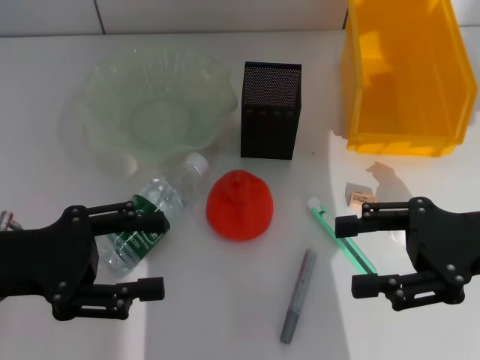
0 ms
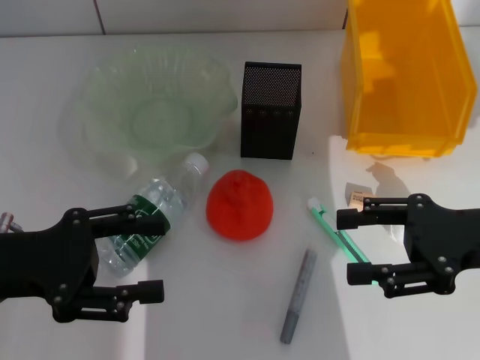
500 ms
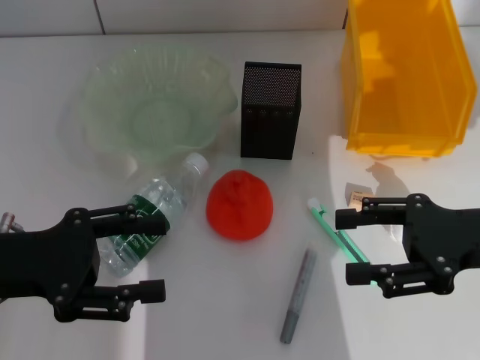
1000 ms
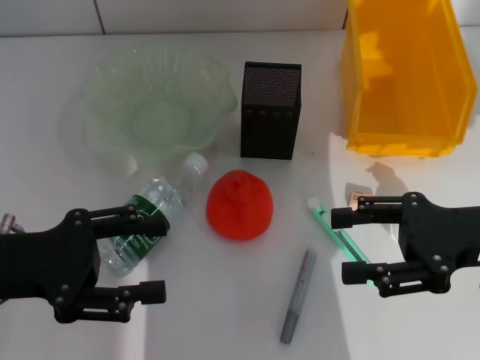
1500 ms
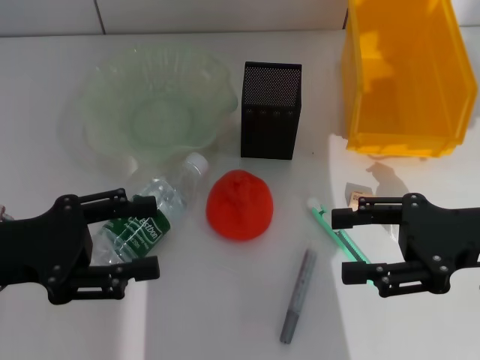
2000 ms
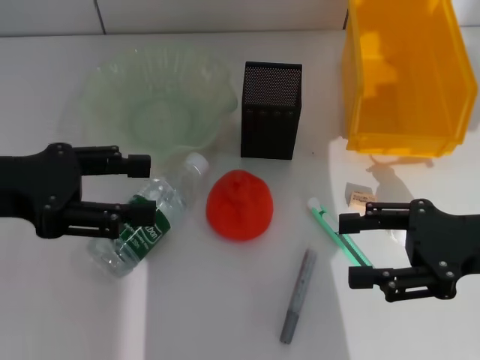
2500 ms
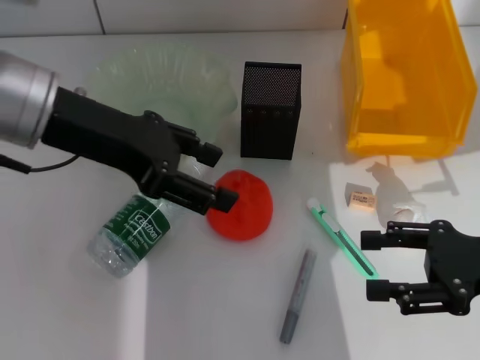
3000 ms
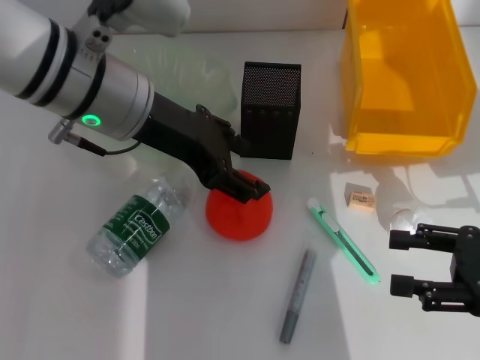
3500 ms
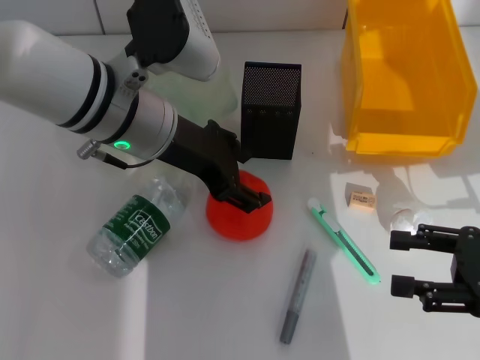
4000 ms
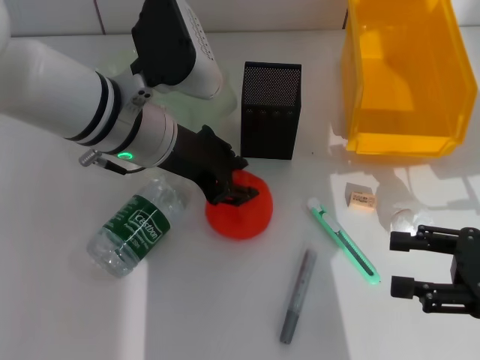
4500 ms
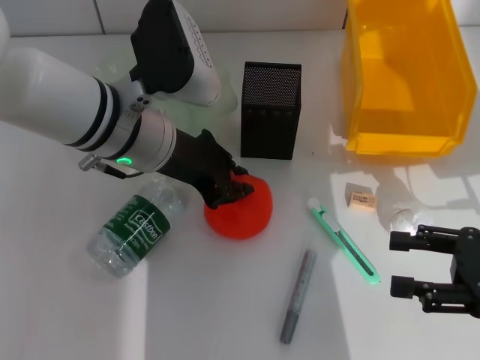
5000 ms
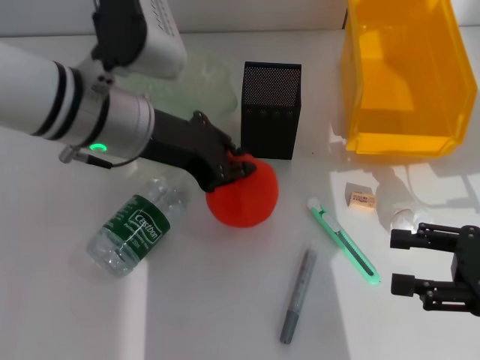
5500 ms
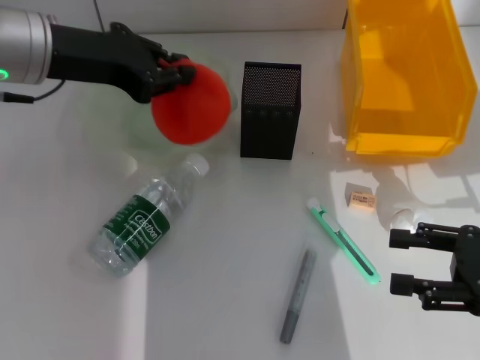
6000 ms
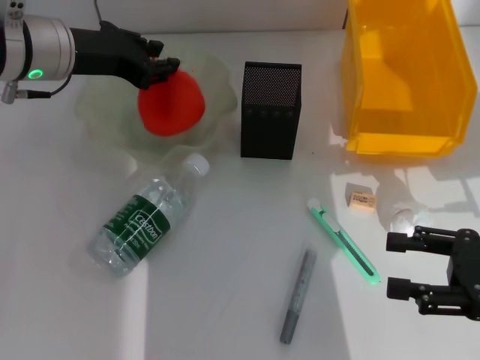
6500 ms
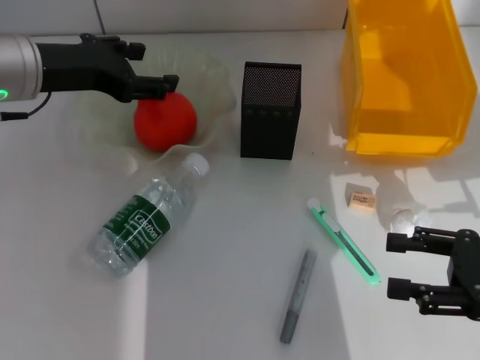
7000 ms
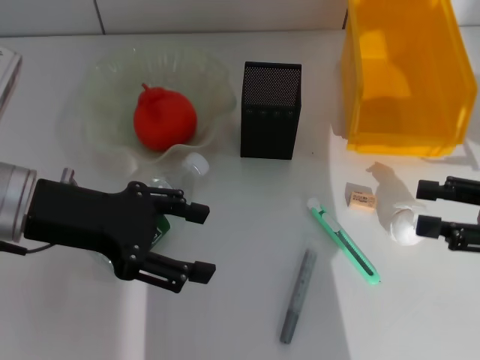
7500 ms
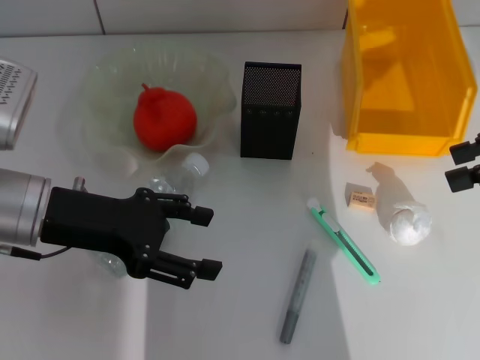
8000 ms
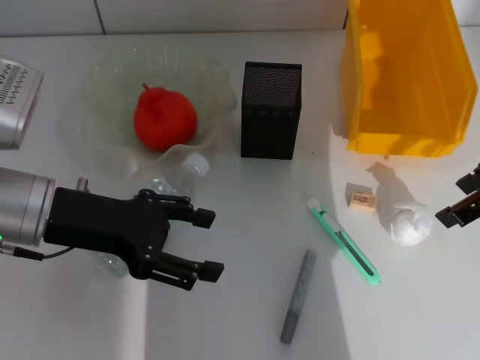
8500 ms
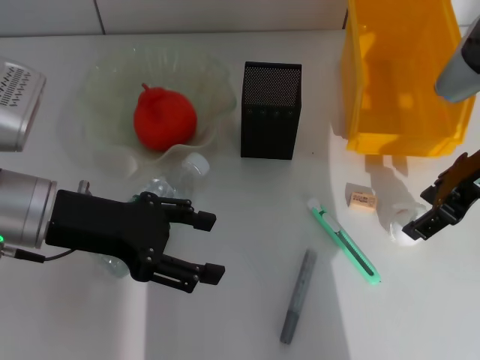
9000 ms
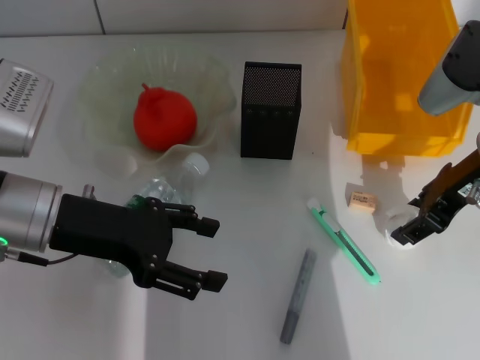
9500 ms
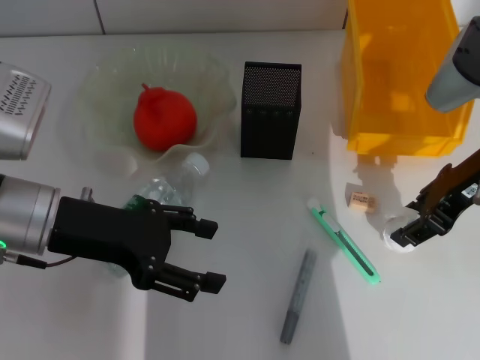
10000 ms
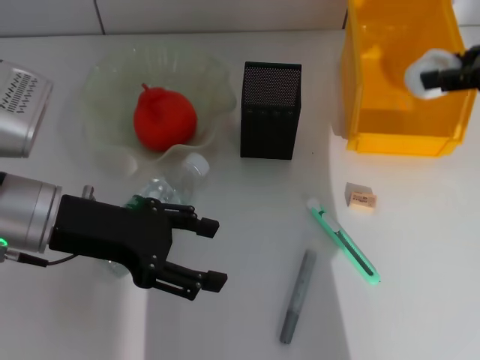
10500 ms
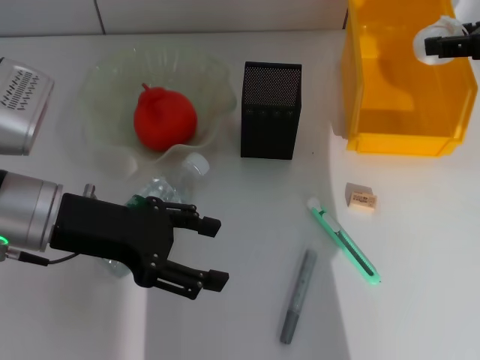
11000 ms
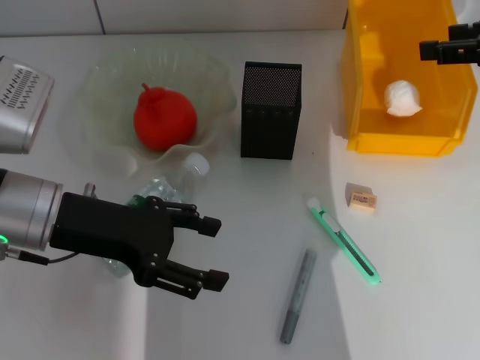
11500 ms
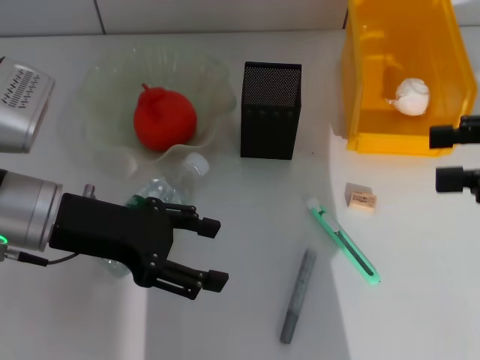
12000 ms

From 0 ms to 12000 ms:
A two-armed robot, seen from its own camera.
Step, from 0 ms to 4500 ms: Grab the orange with the left hand.
Step, from 5000 ms to 6500 ms: Place the orange into the fruit bowl with the left hand.
Step, from 7000 ms to 9500 ms: Grab the paper ball with the right hand.
Step, from 10000 ms to 11000 ms: Place the paper ball into the trash can with the right hand.
From 0 ms to 2000 ms: Both grippers stay about where they are.
From 2000 ms to 4000 ms: The left gripper goes about 20 cm to the right and forward, while the right gripper heads to the right, covering roughly 5 cm.
From 4000 ms to 6000 ms: The left gripper is displaced to the left by some 10 cm, and closes.
From 6000 ms to 8000 ms: The right gripper shifts some 15 cm upward and forward; the left gripper moves downward and backward, some 10 cm, and opens up.
From 8000 ms to 10000 ms: The right gripper shifts some 10 cm to the left and downward, and closes up.
From 10000 ms to 12000 ms: The right gripper goes some 10 cm to the right and backward, and opens its fingers.

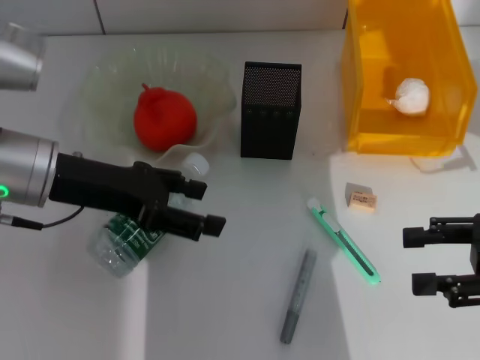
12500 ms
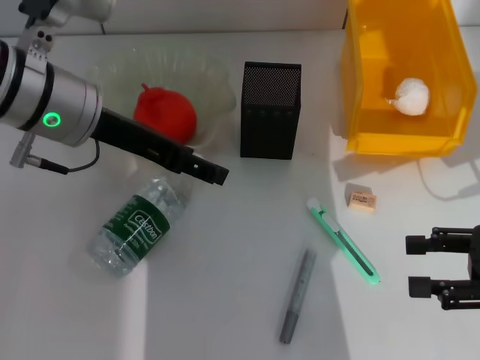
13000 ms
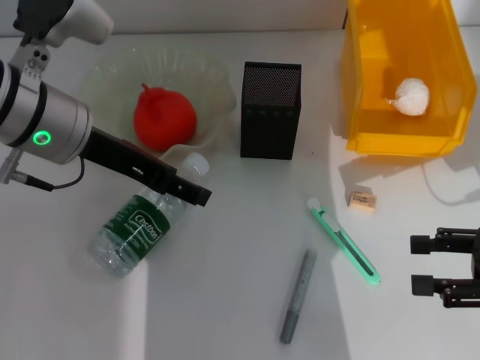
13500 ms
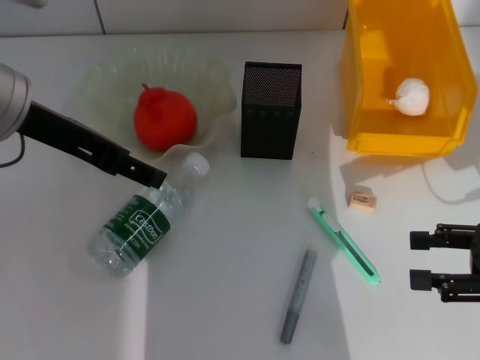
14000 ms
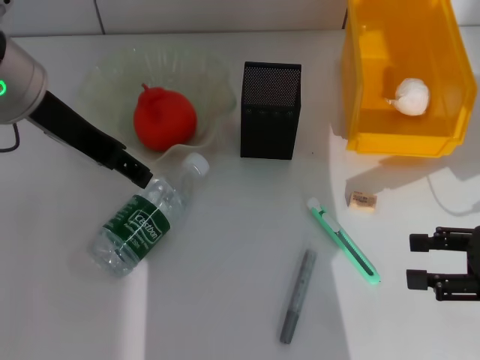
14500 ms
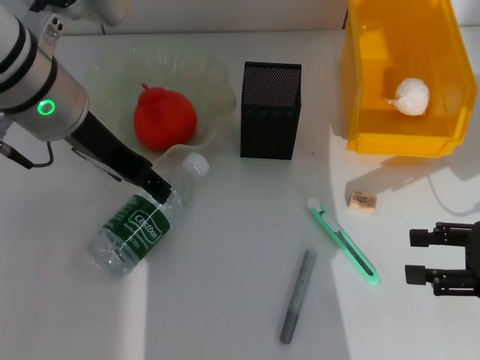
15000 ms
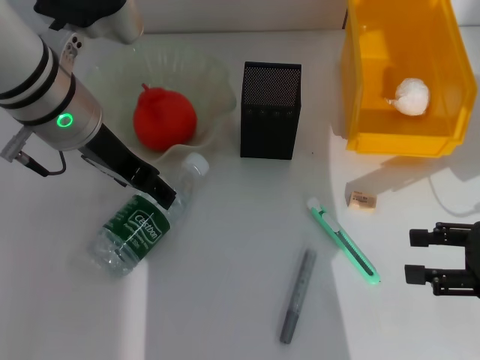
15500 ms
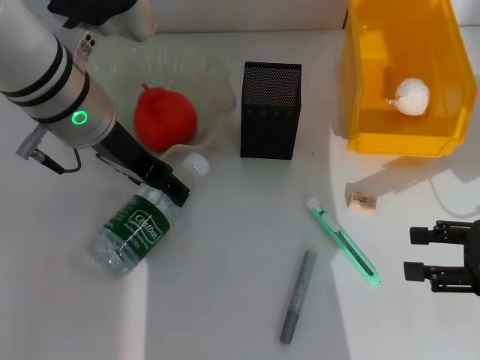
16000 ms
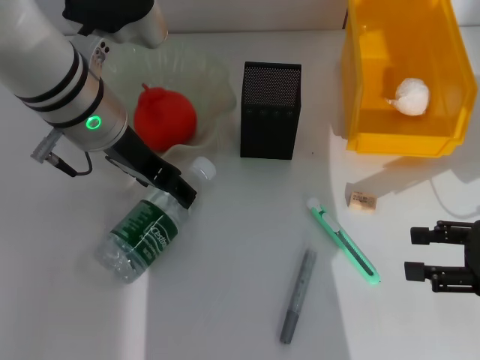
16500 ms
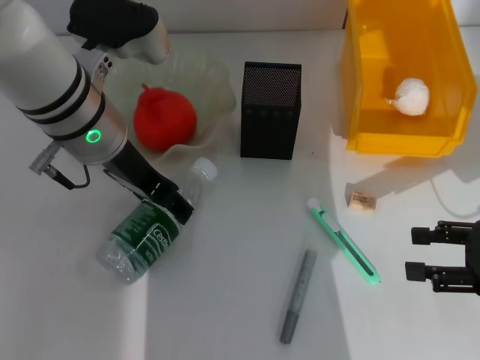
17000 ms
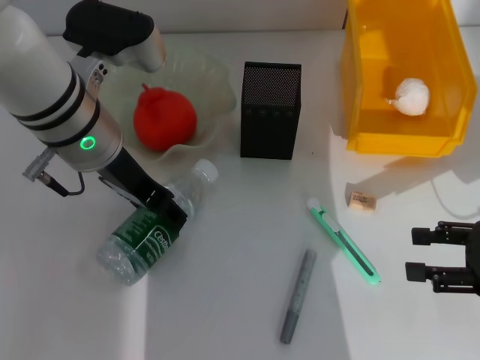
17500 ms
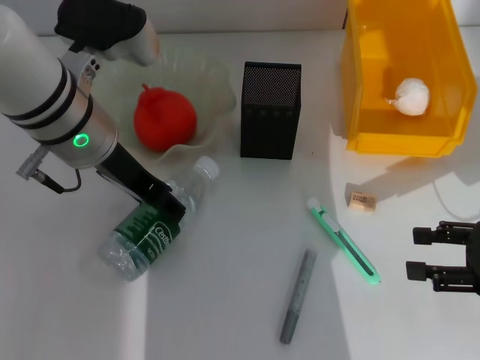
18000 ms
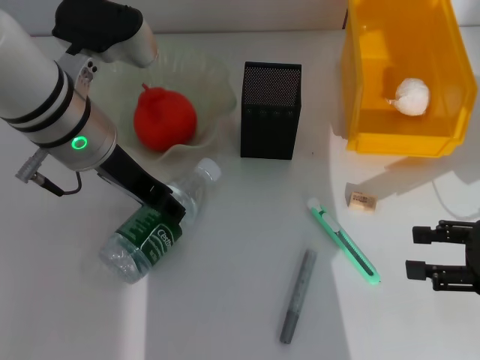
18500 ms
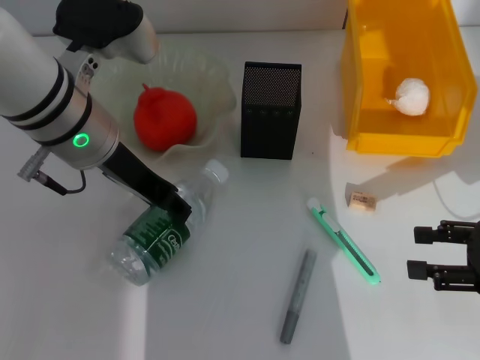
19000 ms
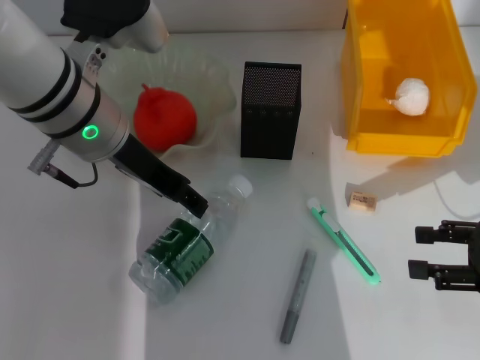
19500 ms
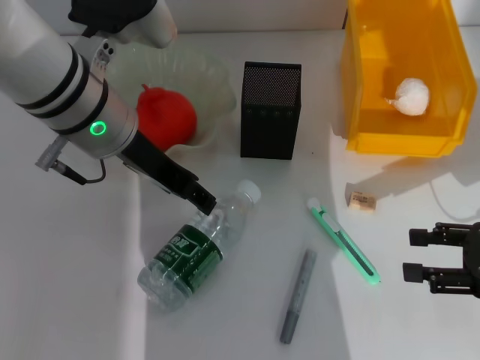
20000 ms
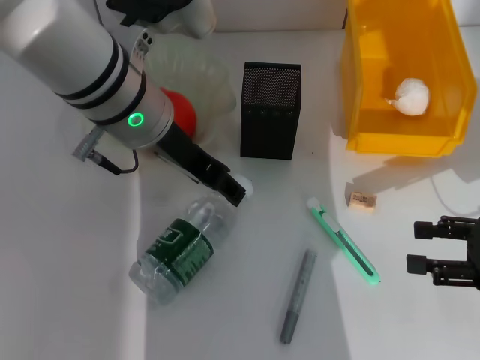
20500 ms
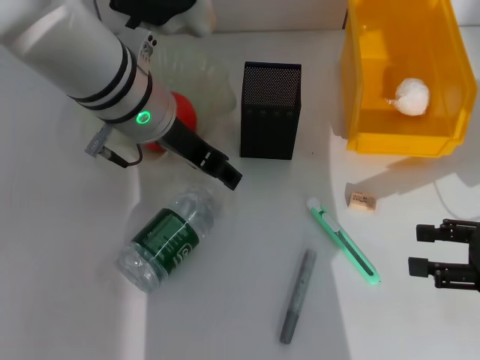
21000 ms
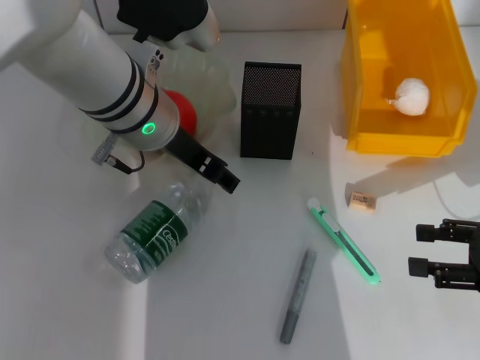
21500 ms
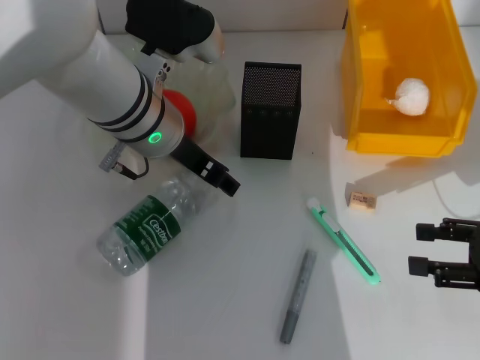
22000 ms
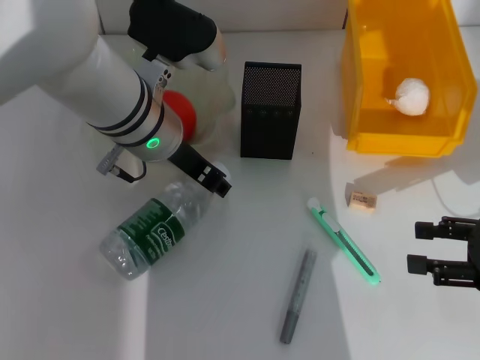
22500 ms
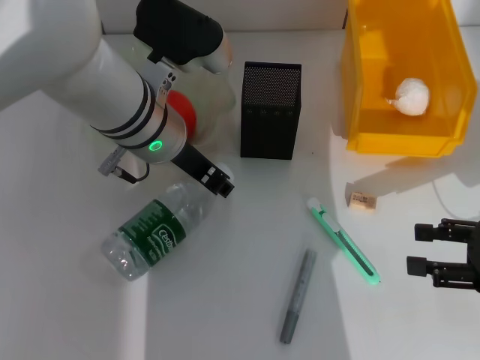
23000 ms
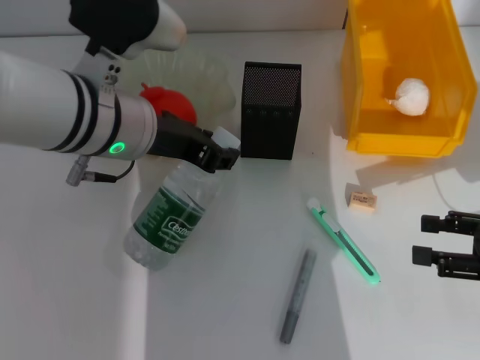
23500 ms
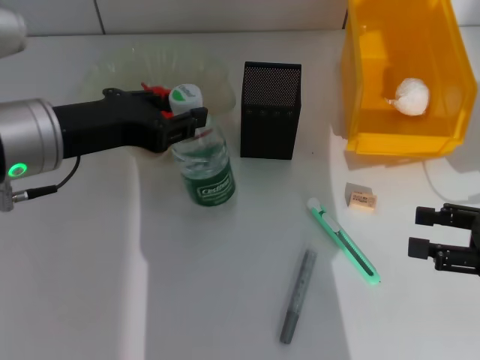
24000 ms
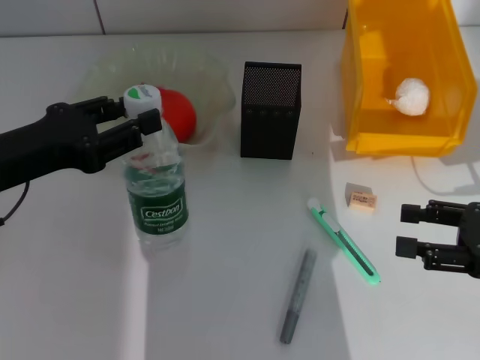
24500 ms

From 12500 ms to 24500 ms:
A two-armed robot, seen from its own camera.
Step, from 12500 ms to 22500 ms: Grab the water bottle with the left hand.
From 12500 ms to 14500 ms: The left gripper travels upward by about 10 cm.
From 14500 ms to 16500 ms: The left gripper shifts some 10 cm downward and to the right.
From 16500 ms to 18500 ms: The grippers make only small movements.
From 18500 ms to 20500 ms: The left gripper ends up about 5 cm from where it was.
From 20500 ms to 22500 ms: There are only small adjustments of the grippers.
From 22500 ms to 24500 ms: The left gripper moves to the left and backward, roughly 20 cm, and closes.

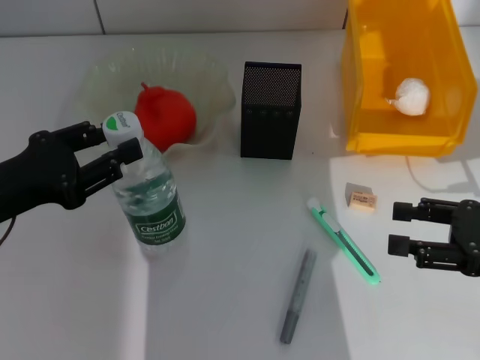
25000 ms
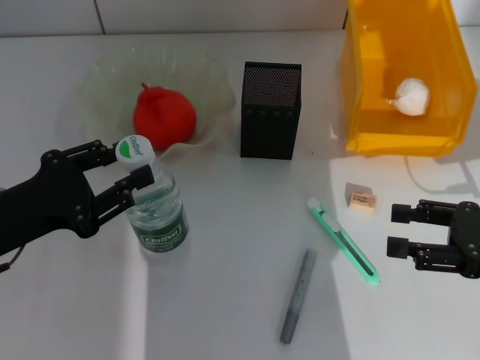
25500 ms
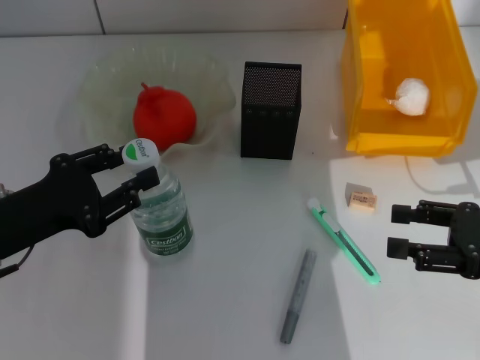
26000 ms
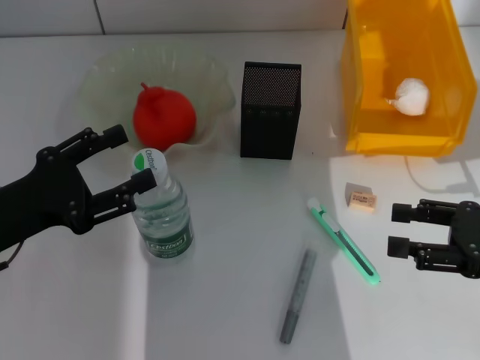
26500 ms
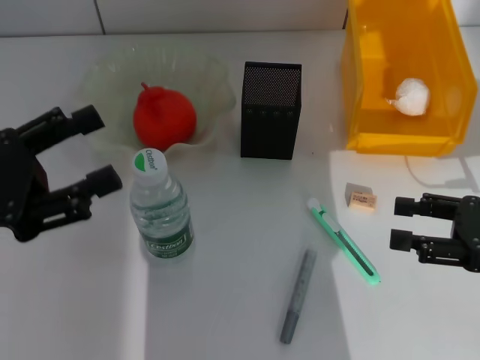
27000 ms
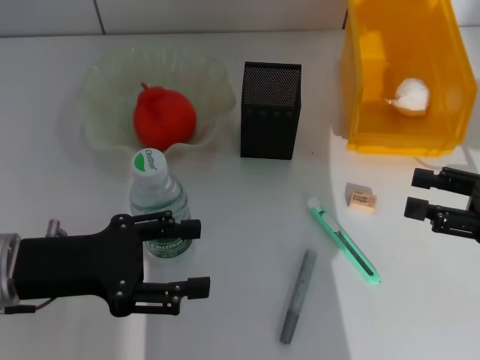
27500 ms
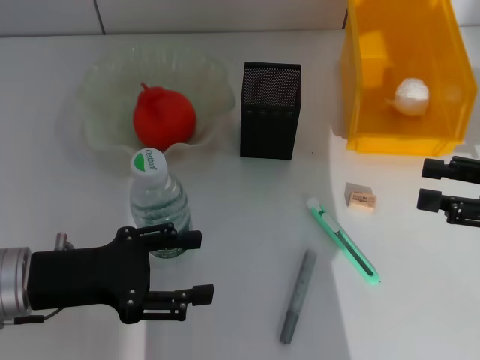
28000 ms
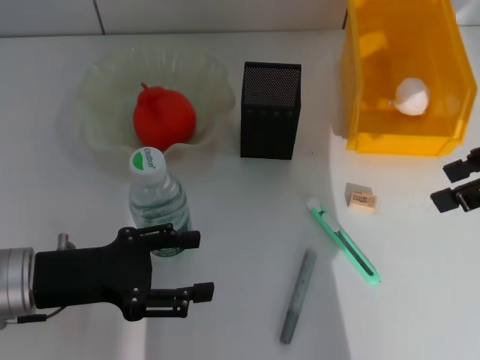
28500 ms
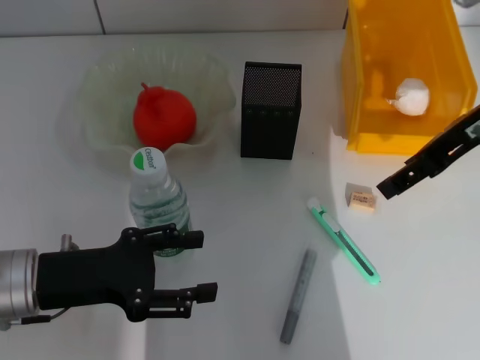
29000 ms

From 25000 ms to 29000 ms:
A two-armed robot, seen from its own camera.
From 25000 ms to 27000 ms: The left gripper opens up.
From 27000 ms to 29000 ms: The right gripper shifts about 20 cm upward, to the left and forward. The left gripper travels downward and to the right by some 10 cm.
